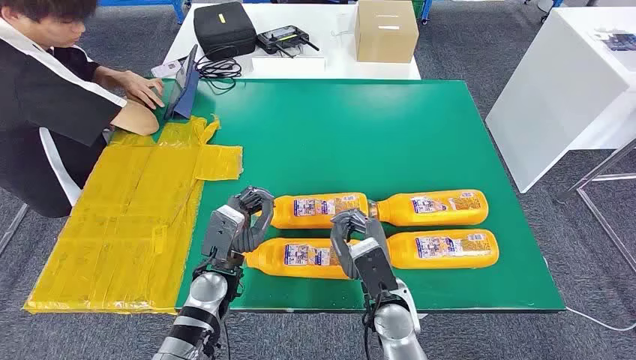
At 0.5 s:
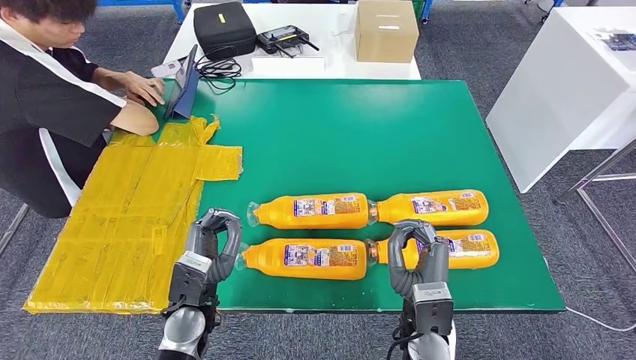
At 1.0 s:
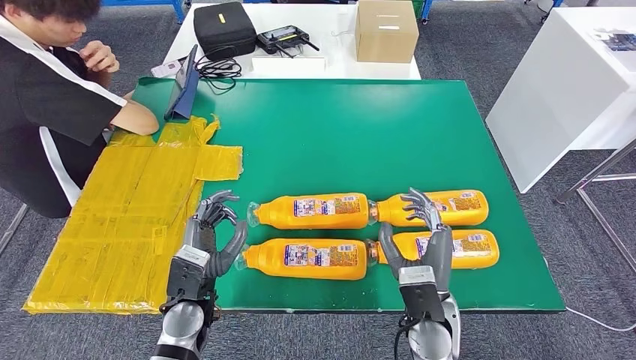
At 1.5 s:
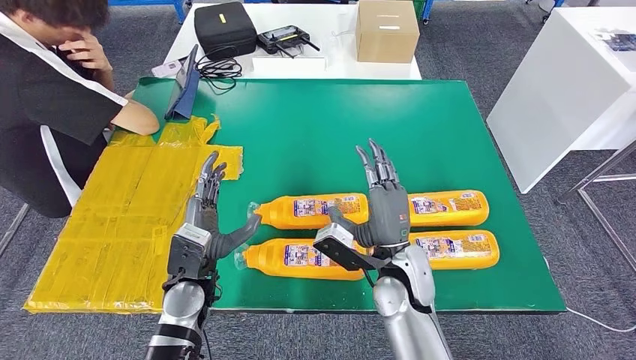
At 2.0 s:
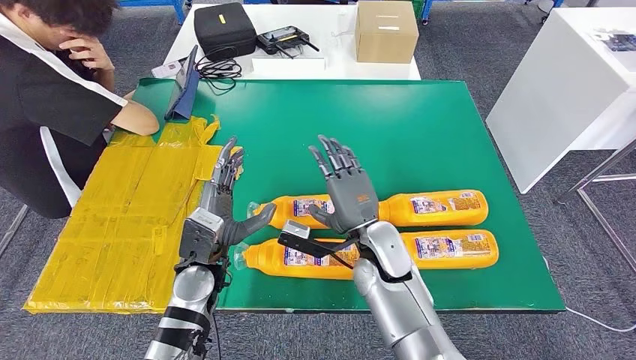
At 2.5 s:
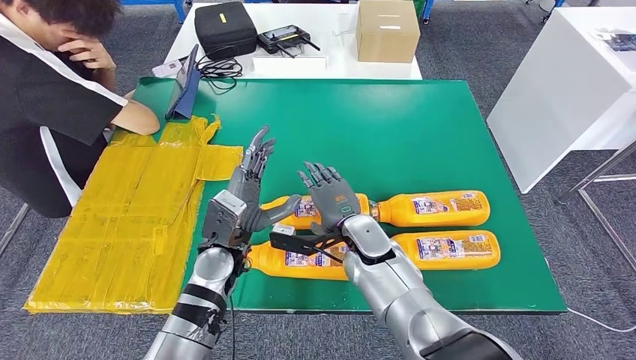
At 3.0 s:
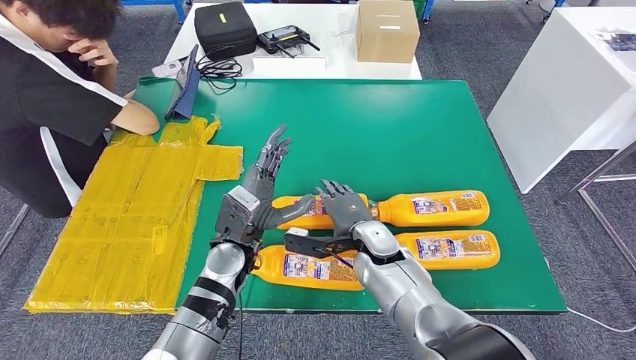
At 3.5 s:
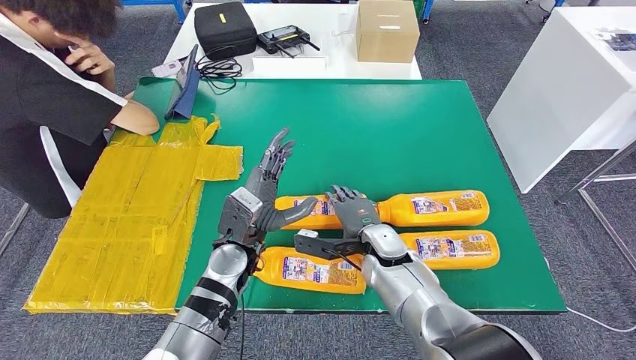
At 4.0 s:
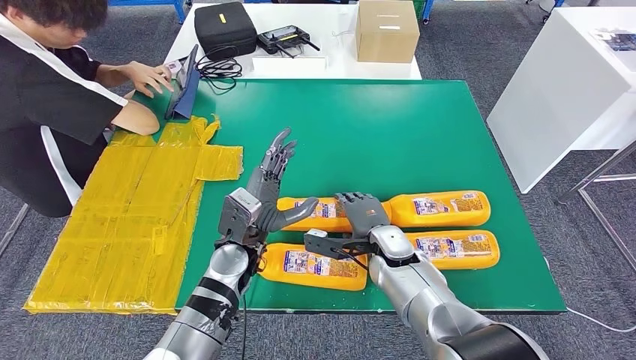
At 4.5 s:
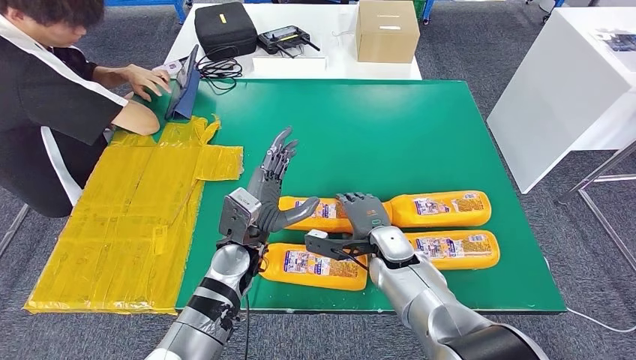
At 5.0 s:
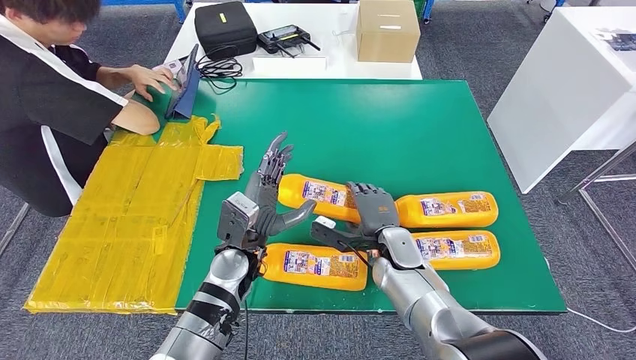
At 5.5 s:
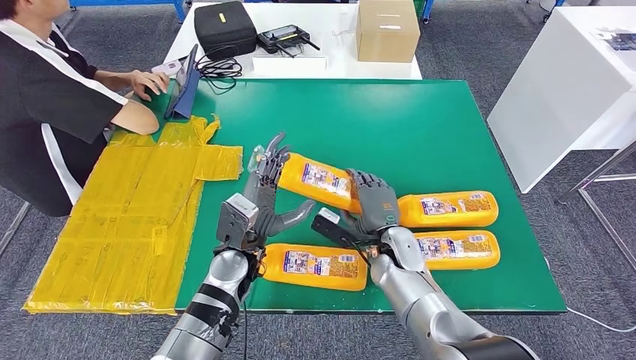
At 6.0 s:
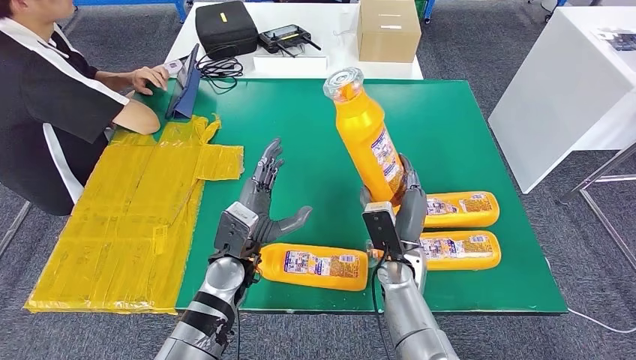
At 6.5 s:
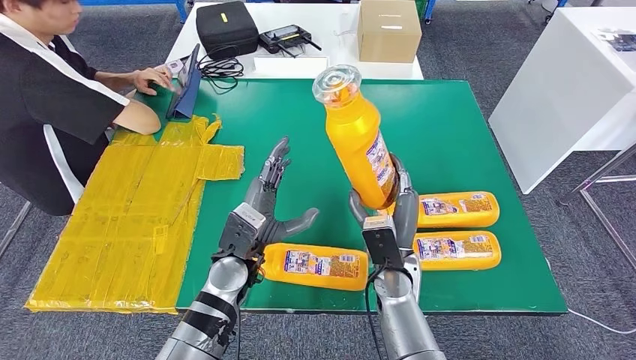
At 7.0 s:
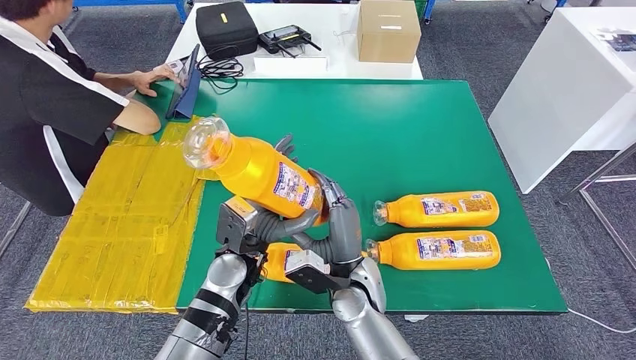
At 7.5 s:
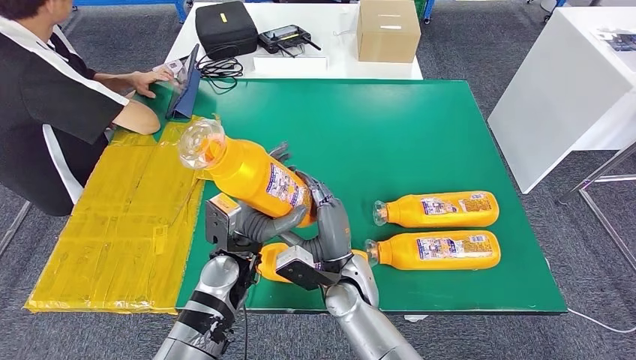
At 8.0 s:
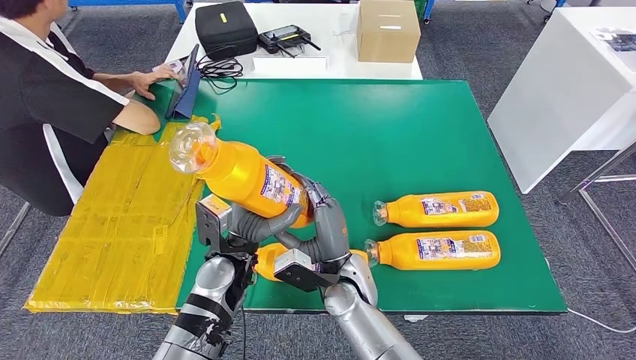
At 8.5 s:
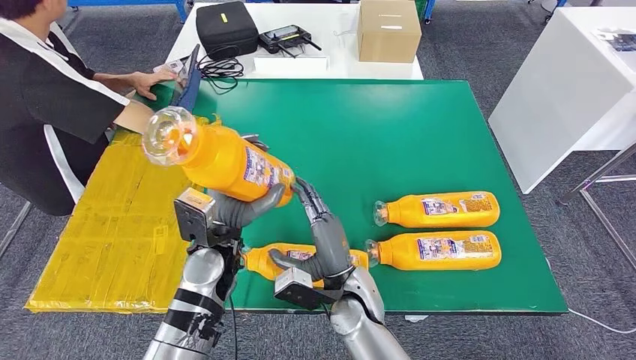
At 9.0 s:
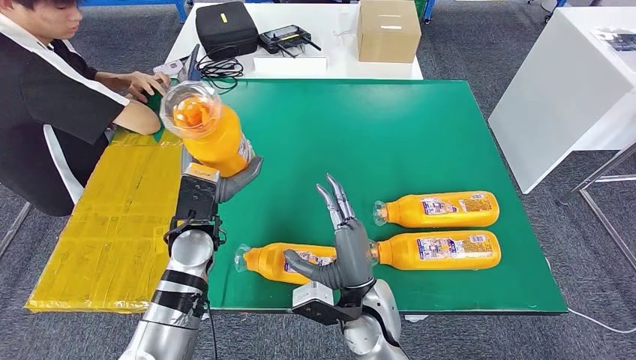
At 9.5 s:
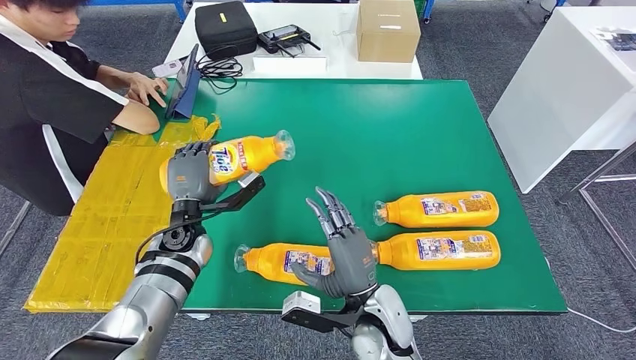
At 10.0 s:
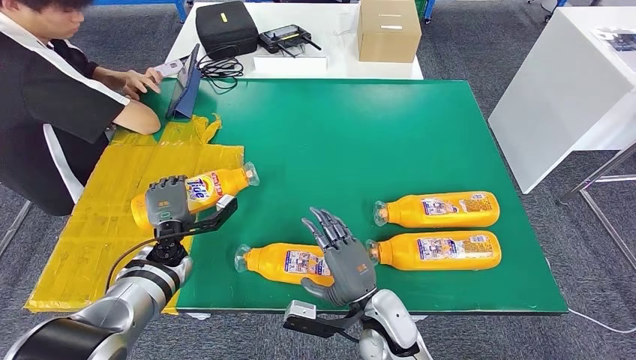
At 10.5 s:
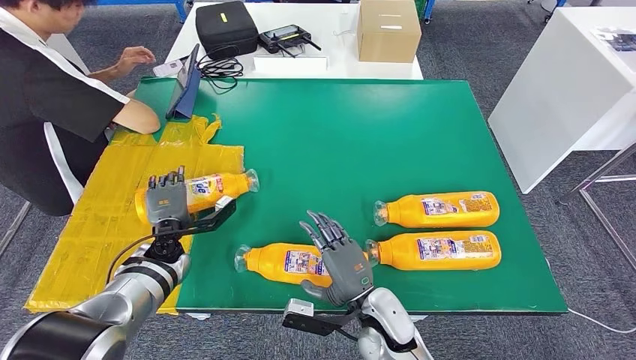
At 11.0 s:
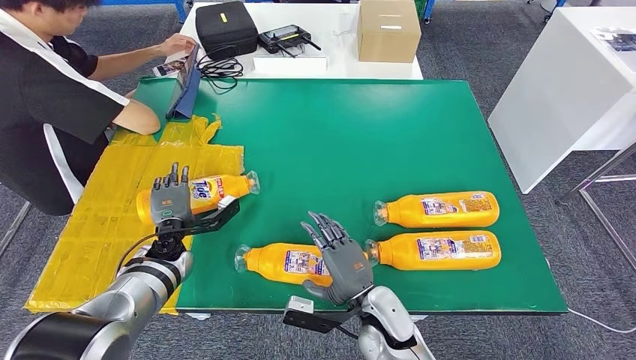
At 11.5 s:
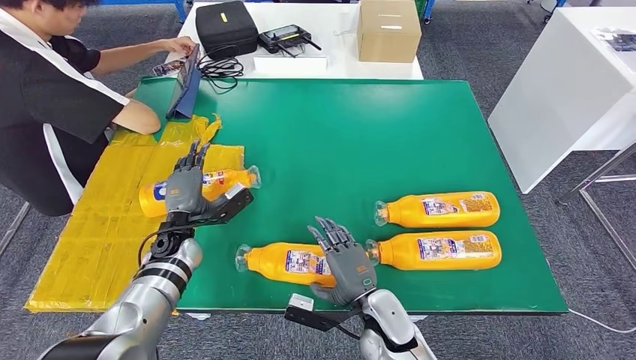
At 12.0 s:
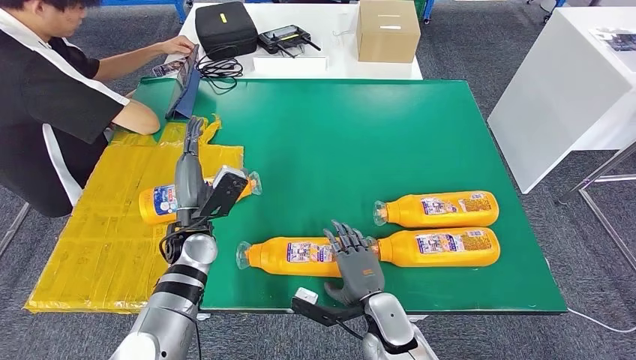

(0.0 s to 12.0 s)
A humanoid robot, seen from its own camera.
Step, 0.0 s - 7.0 s: Take the bottle from the table.
2.0 s - 4.0 s: The left hand shifts roughly 5 cm to the right. Meanwhile the right hand heads downward, covering approximately 5 cm.
6.0 s - 8.0 s: The right hand moves to the left and backward, approximately 10 cm.
8.0 s - 10.0 s: The right hand goes about 5 cm to the right, while the left hand moves to the left and downward, approximately 15 cm.
10.0 s - 12.0 s: The left hand heads upward and to the right, covering roughly 10 cm.

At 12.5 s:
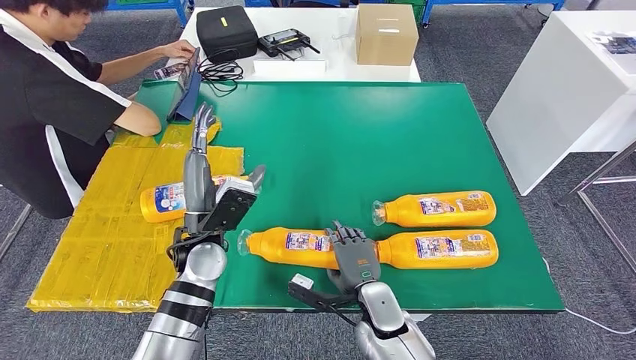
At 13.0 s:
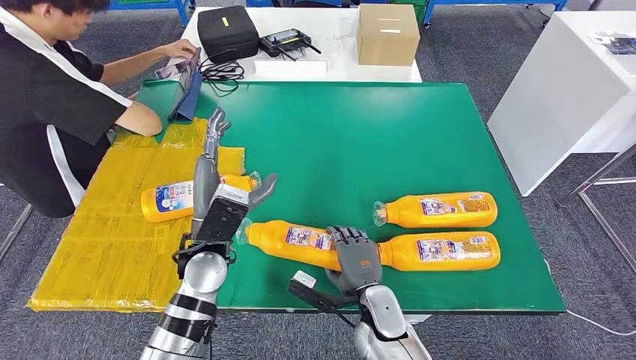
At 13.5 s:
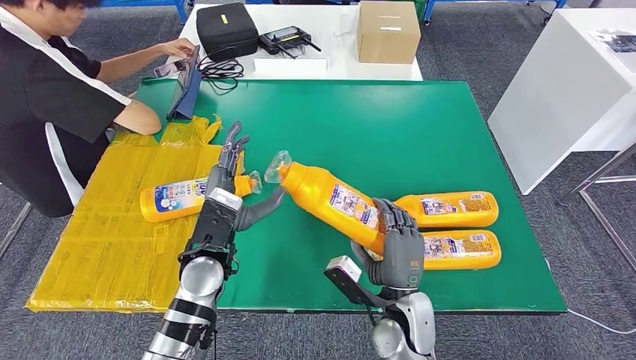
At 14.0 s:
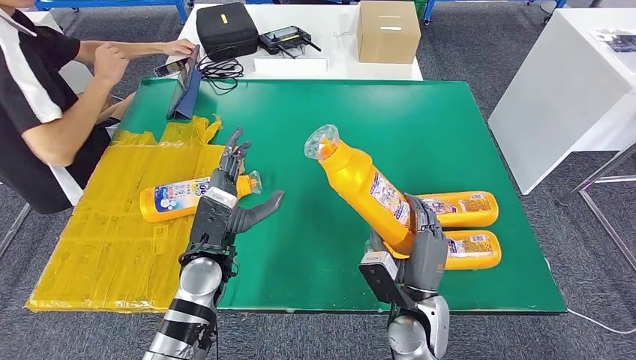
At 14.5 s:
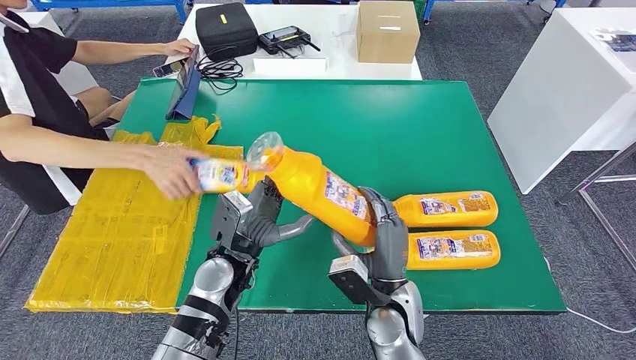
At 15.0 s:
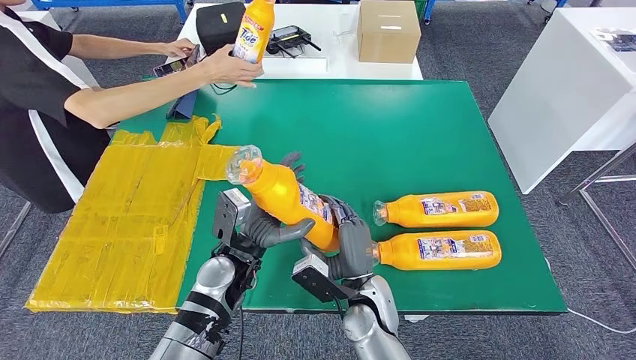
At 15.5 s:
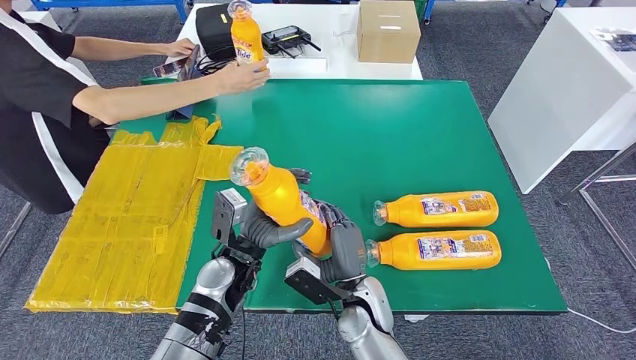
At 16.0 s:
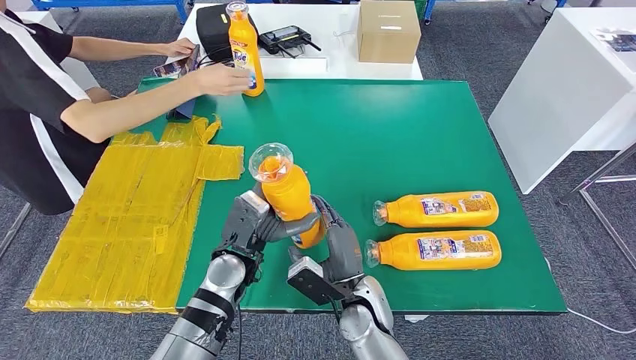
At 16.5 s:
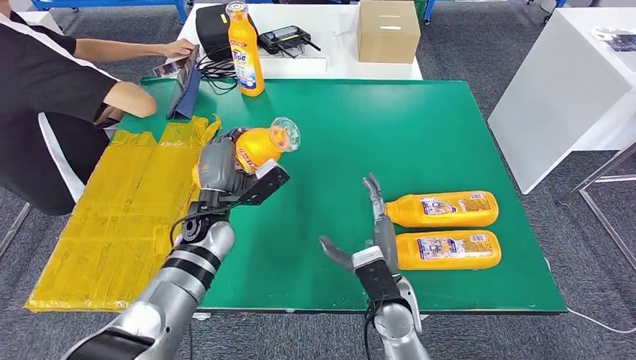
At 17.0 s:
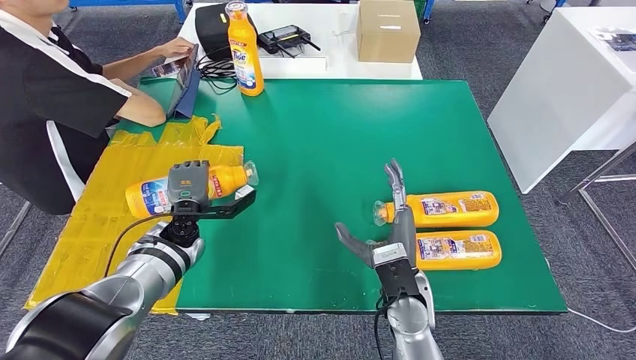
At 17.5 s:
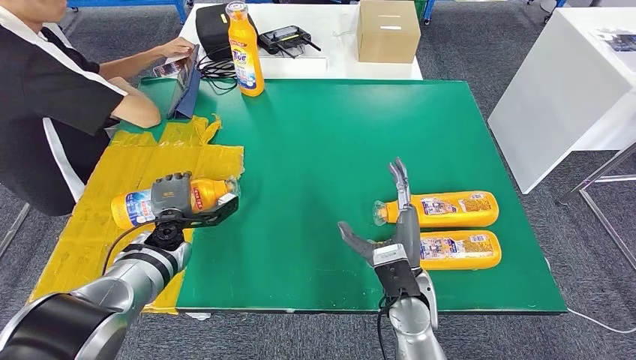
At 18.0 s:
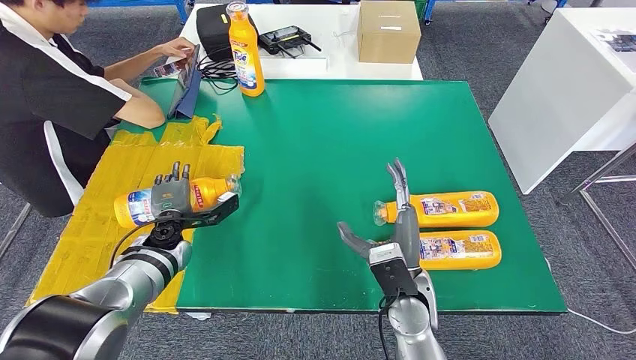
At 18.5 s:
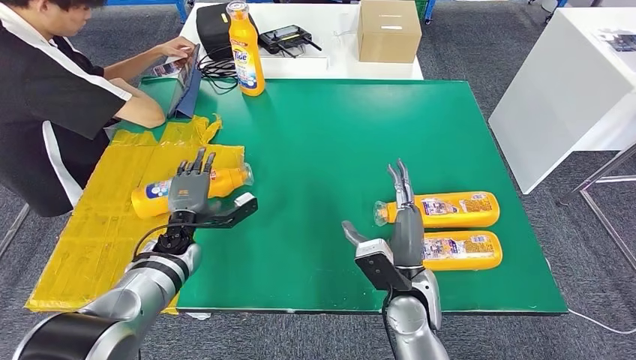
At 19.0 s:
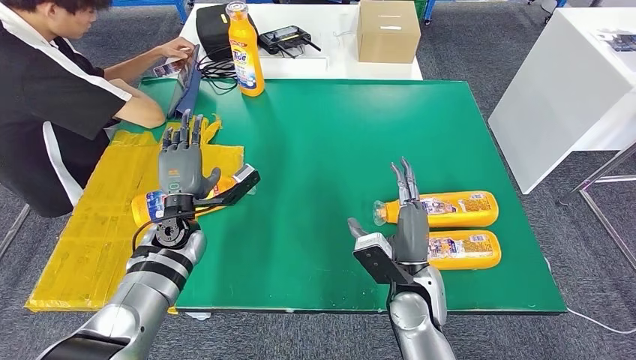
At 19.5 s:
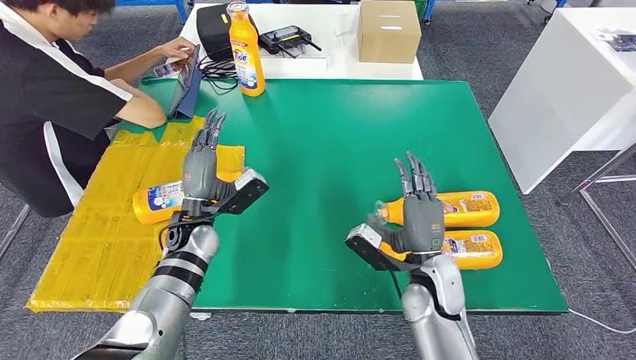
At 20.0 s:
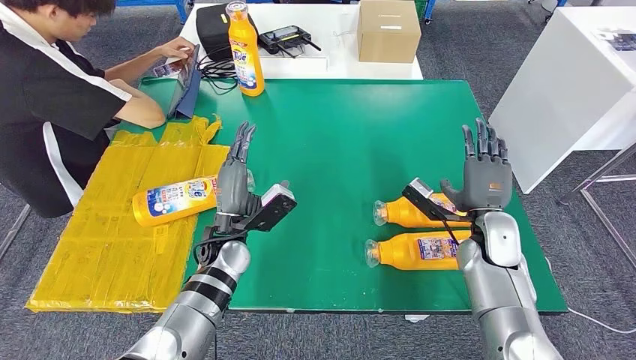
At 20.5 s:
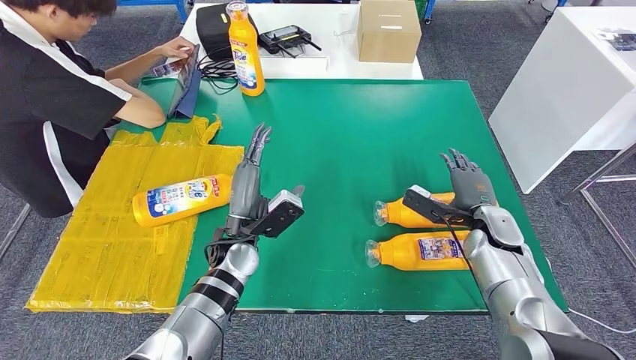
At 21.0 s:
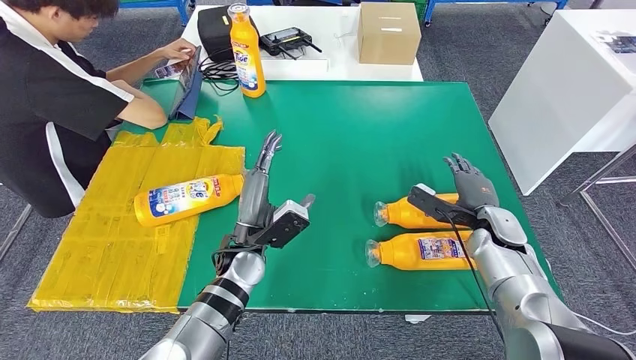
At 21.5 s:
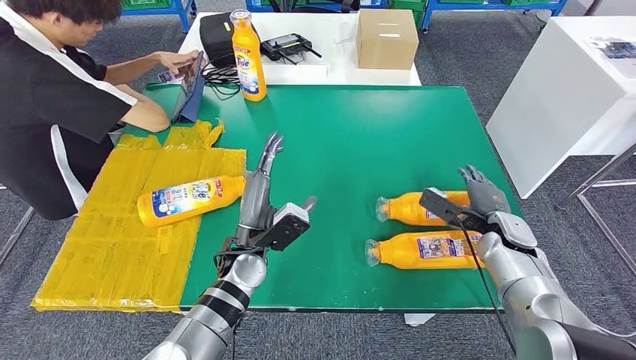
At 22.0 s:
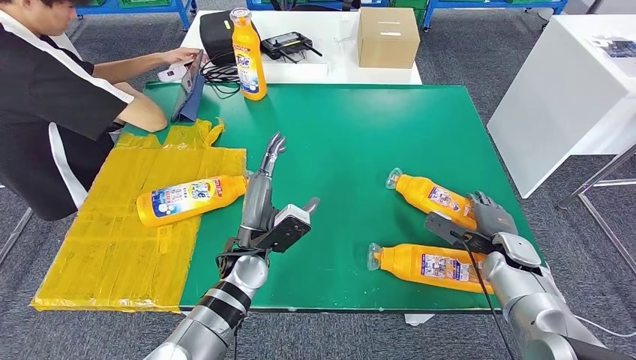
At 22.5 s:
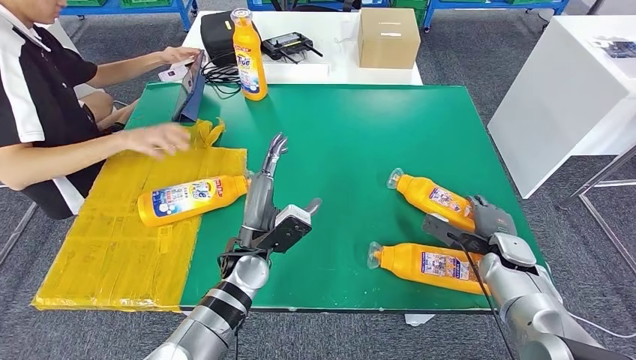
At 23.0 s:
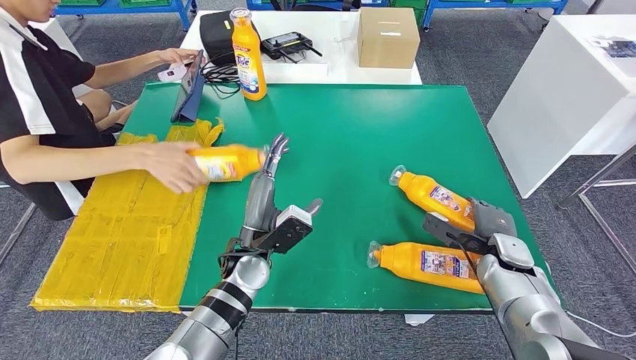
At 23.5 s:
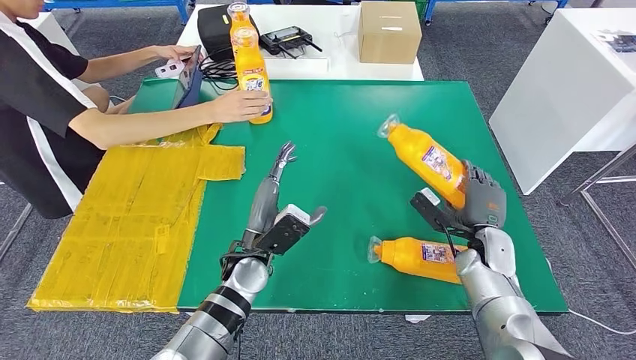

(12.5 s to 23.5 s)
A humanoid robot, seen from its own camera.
Step, 13.0 s - 16.0 s: Pick up the bottle from the table.
Step, 16.5 s - 20.5 s: Flip the bottle to face forward.
